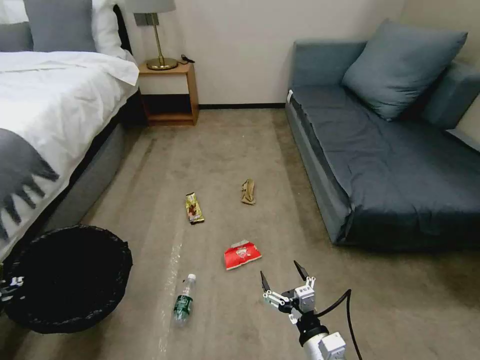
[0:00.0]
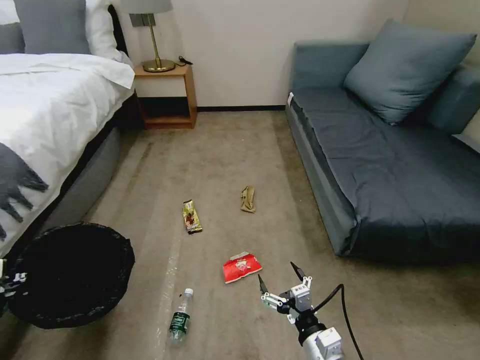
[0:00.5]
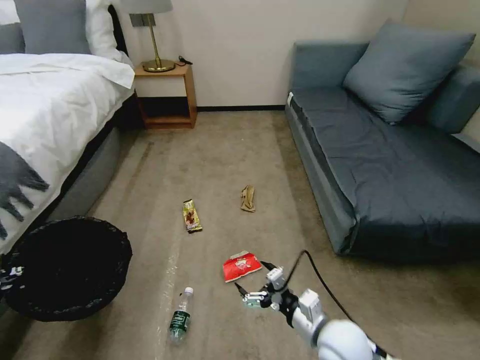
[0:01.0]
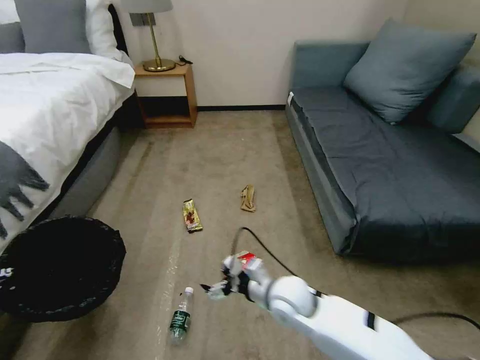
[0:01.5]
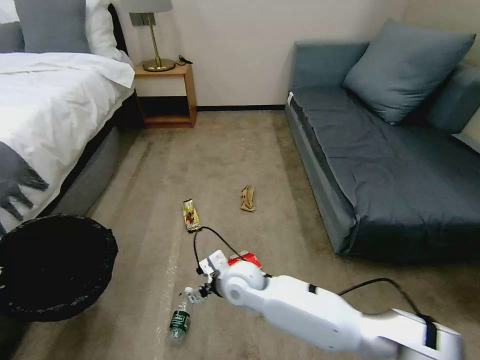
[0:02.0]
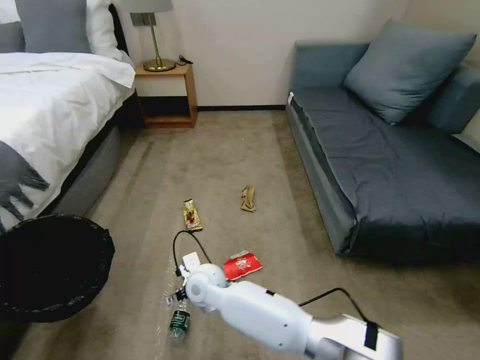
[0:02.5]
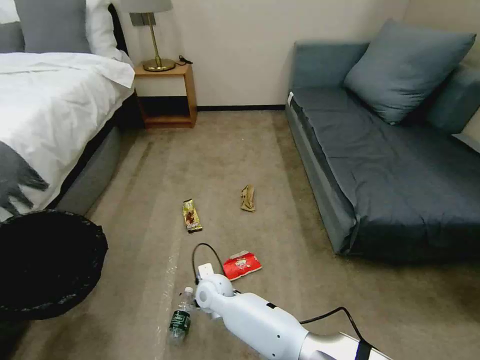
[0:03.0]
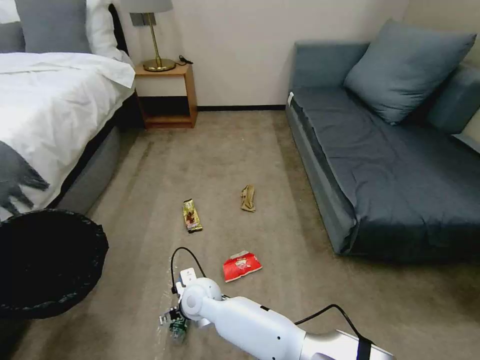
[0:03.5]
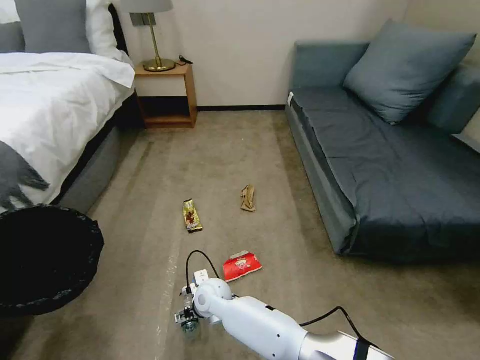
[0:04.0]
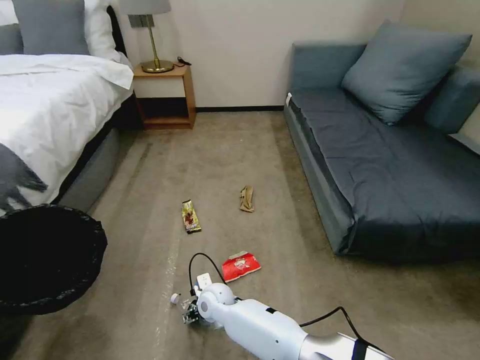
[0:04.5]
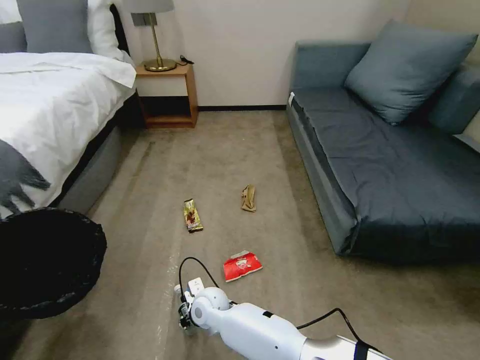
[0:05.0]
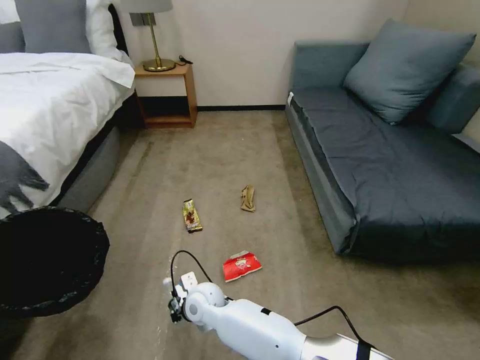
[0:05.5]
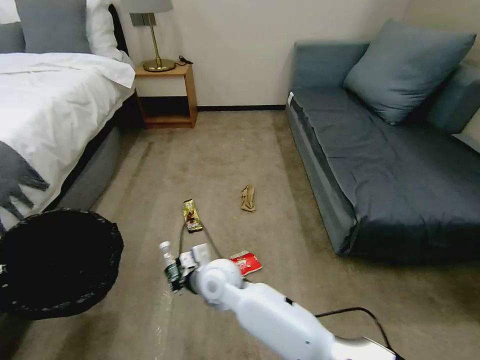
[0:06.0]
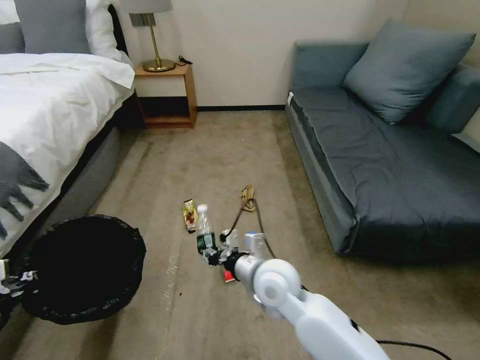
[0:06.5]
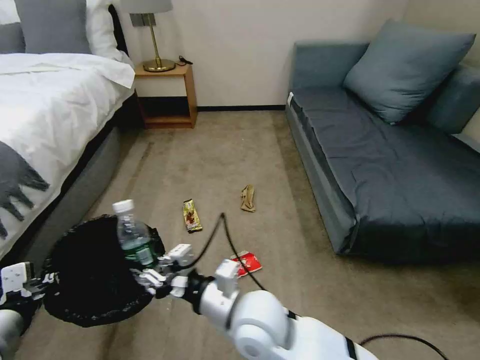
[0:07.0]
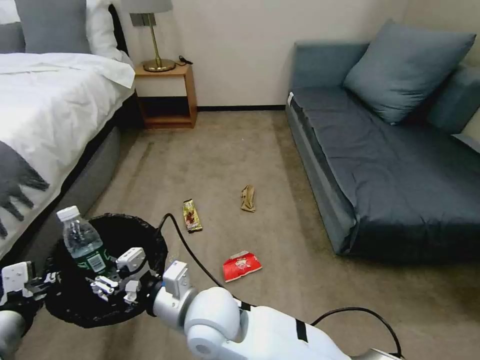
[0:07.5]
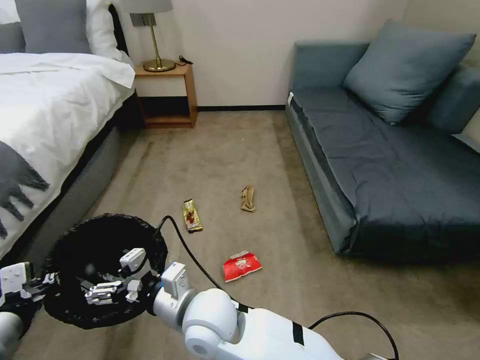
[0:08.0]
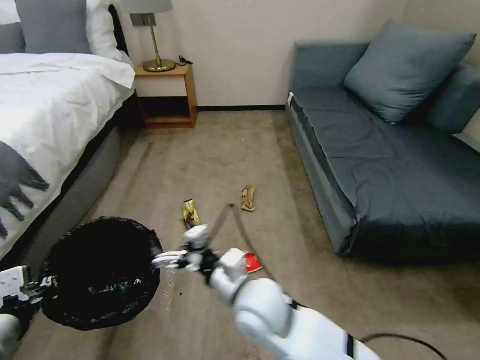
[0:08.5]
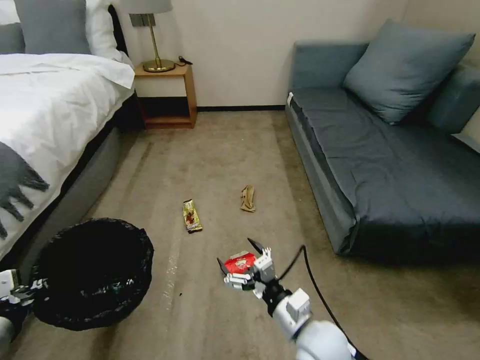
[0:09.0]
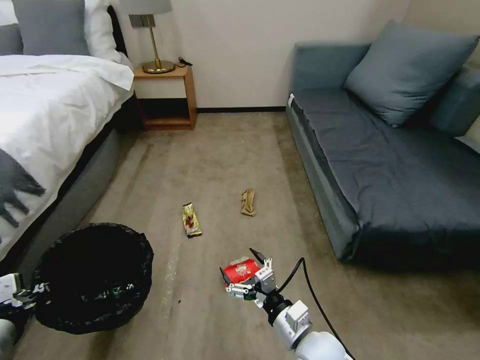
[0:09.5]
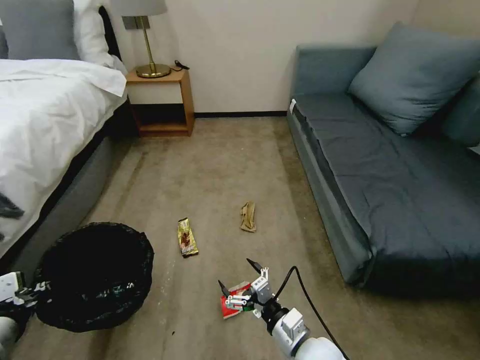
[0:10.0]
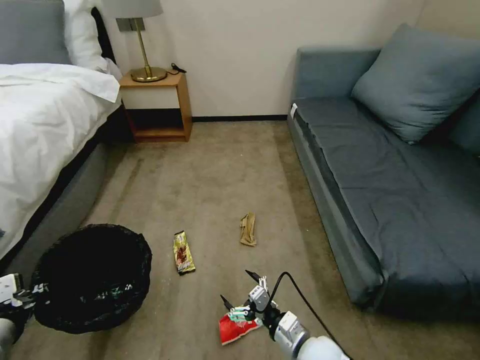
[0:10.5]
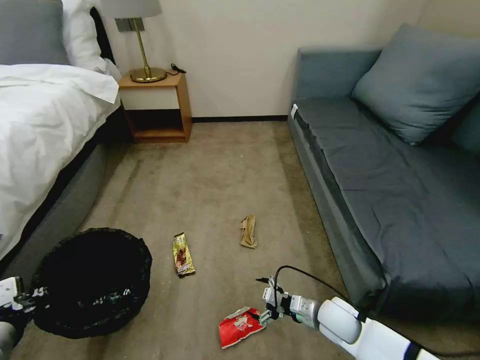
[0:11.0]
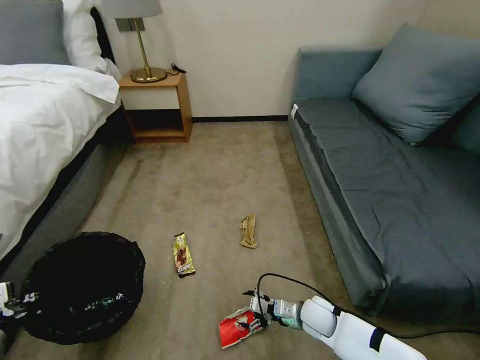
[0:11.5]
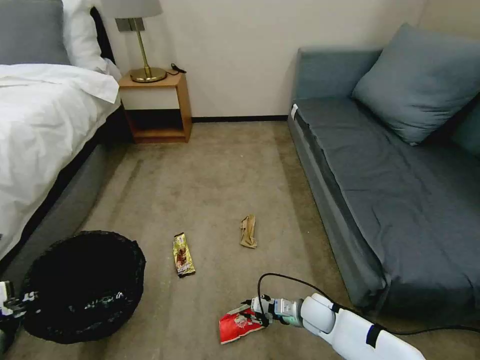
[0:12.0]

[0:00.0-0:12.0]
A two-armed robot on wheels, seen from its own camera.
Task of the whole recording: Pick up the trash bin, then pick up the garbage on the floor and place it into the trash bin.
0:00.0 to 0:02.0: The right gripper is displaced forward and to the left by some 30 cm.
0:02.0 to 0:04.0: The right gripper is displaced downward and to the left by approximately 10 cm.
0:04.0 to 0:06.0: The right gripper heads upward, covering approximately 10 cm, and closes its fingers.
0:06.0 to 0:08.0: The left gripper moves to the right, some 10 cm. The right gripper travels backward and upward by roughly 10 cm, reaches approximately 15 cm to the right, then returns, and opens its fingers.
0:08.0 to 0:10.0: The right gripper is displaced to the right and downward by roughly 25 cm.
0:10.0 to 0:12.0: The right gripper shifts some 20 cm forward, downward and to the right, and closes its fingers.

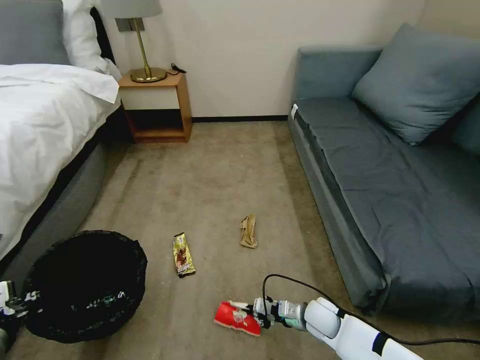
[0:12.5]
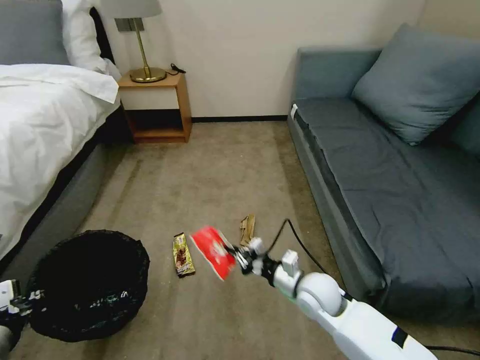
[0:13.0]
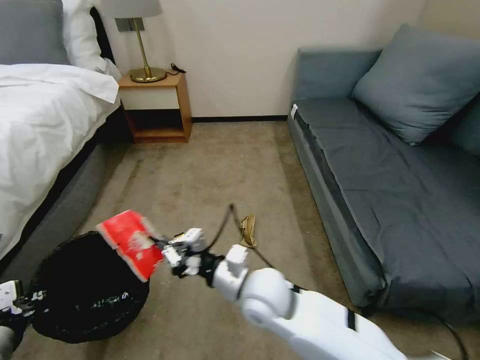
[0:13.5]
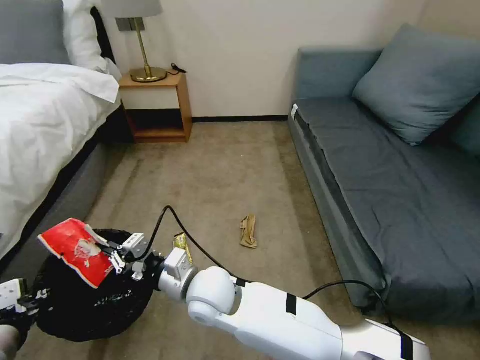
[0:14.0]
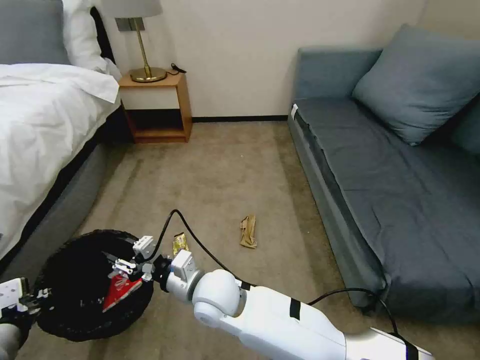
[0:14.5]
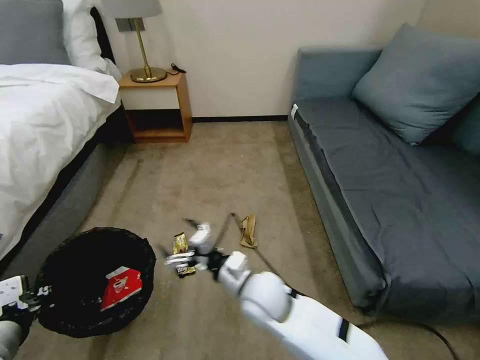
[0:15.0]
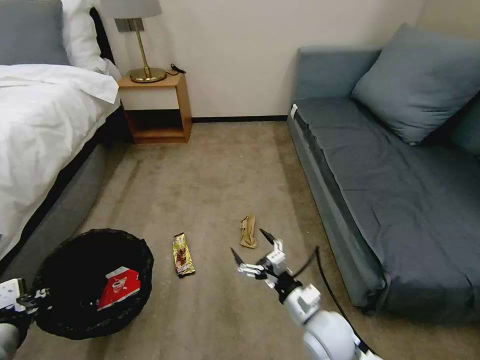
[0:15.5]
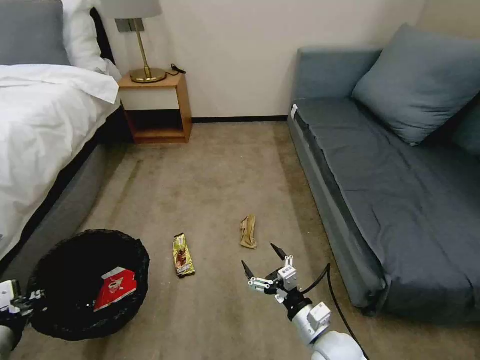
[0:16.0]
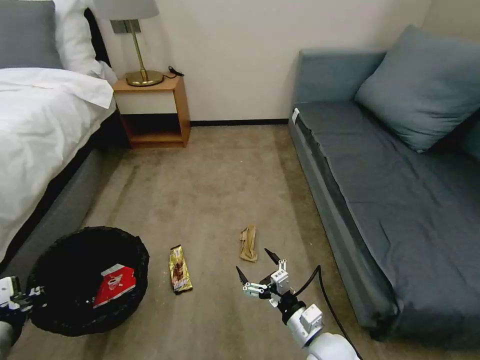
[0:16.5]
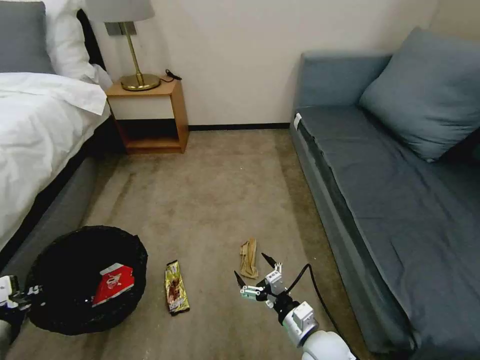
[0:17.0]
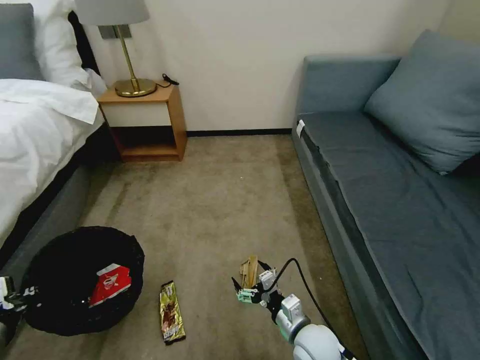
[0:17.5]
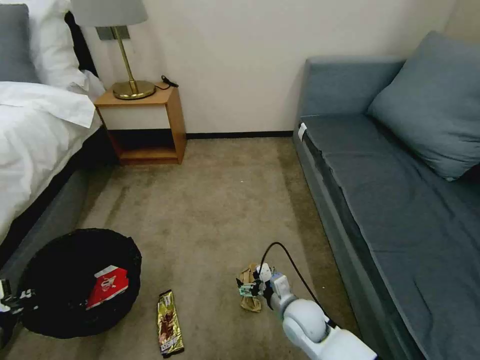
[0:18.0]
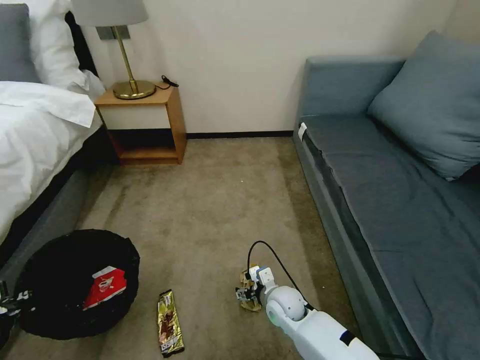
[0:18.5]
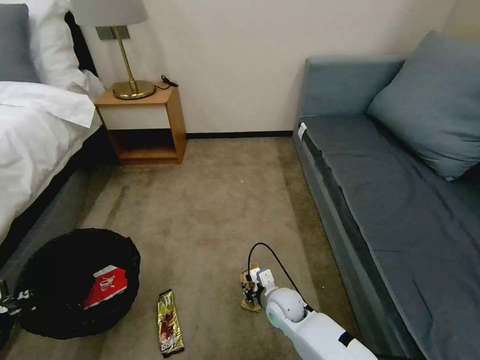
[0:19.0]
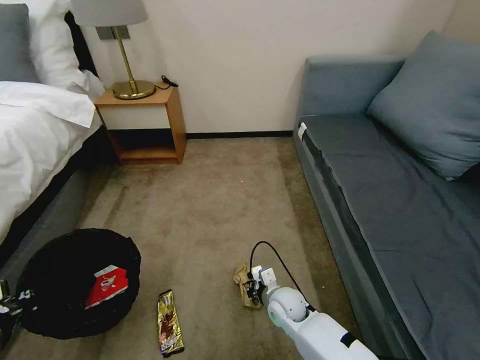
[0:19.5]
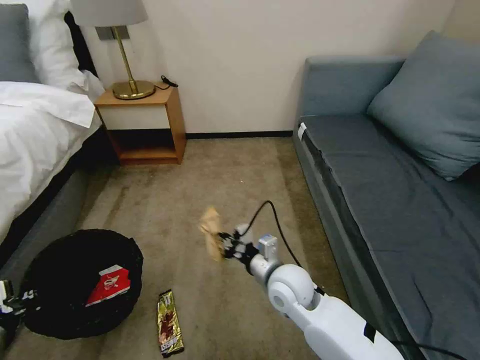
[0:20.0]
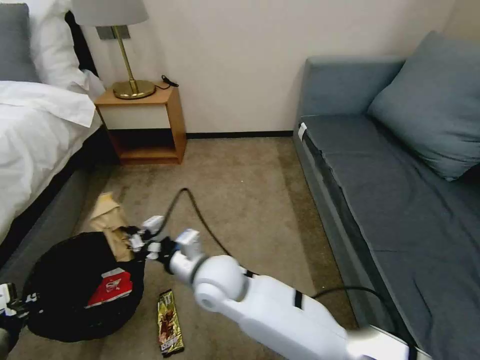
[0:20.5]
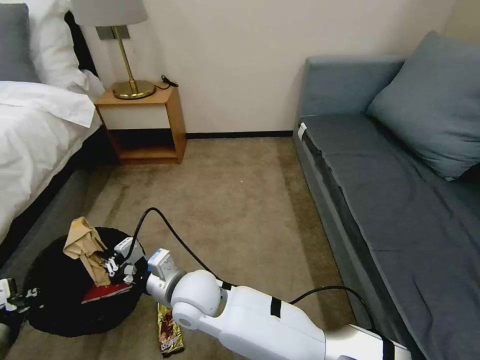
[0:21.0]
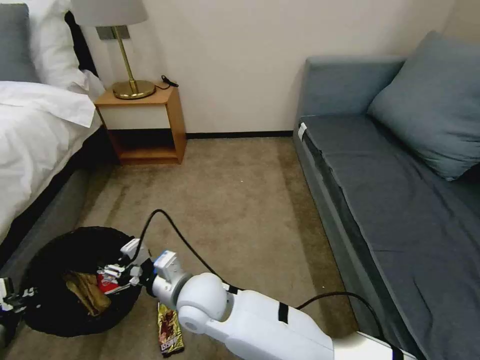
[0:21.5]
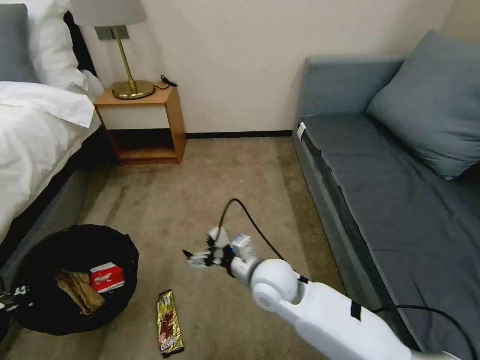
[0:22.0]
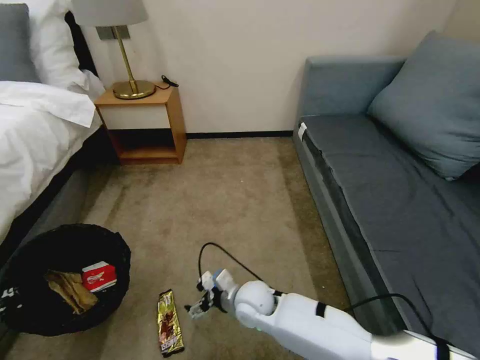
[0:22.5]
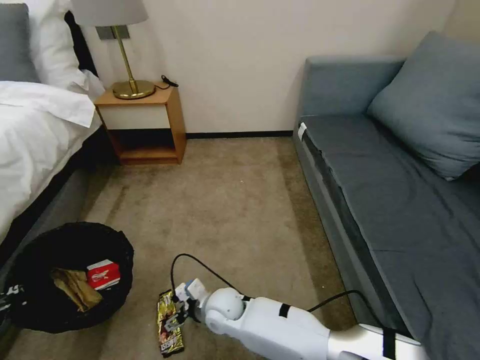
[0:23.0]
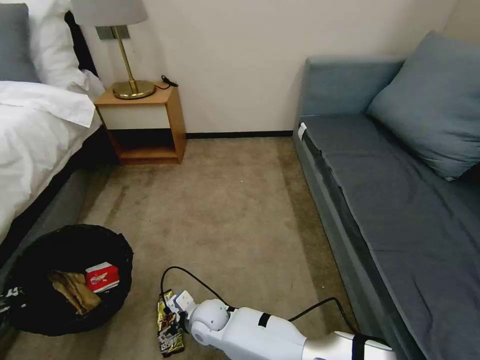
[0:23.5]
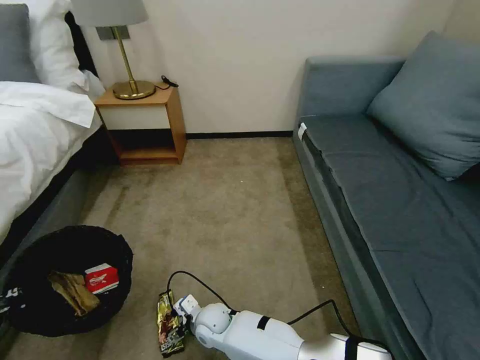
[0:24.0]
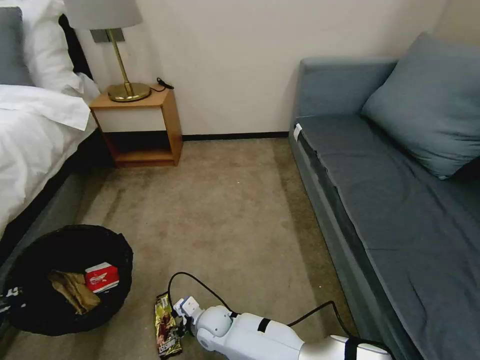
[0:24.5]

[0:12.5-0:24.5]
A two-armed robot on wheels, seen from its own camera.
Task of the whole recording: Pick up the trash bin, then pick up the garbage on the floor and place it into the trash bin.
0:12.5 to 0:14.5: The right gripper goes roughly 35 cm to the left and upward, and opens.
0:14.5 to 0:16.5: The right gripper goes roughly 25 cm to the right and downward, and opens up.
0:16.5 to 0:18.5: The right gripper shifts roughly 15 cm forward, to the left and downward.
0:18.5 to 0:20.5: The right gripper goes approximately 25 cm upward and to the left, and closes.
0:20.5 to 0:22.5: The right gripper is displaced downward and to the right by about 15 cm, and opens up.
0:22.5 to 0:24.5: The right gripper goes roughly 15 cm downward and to the left, and closes up.

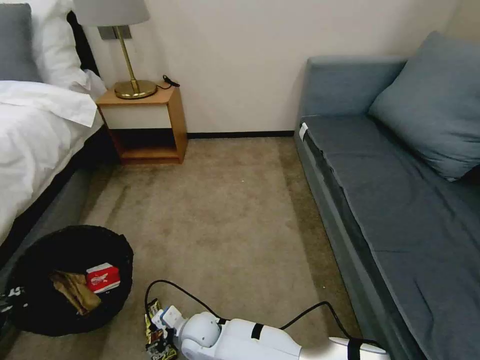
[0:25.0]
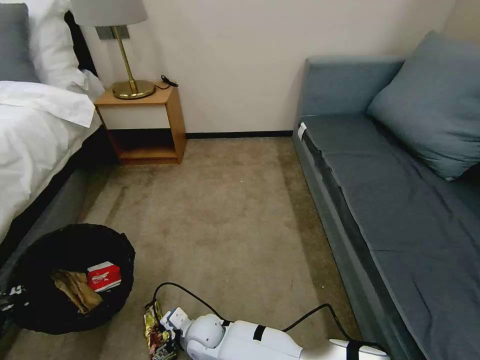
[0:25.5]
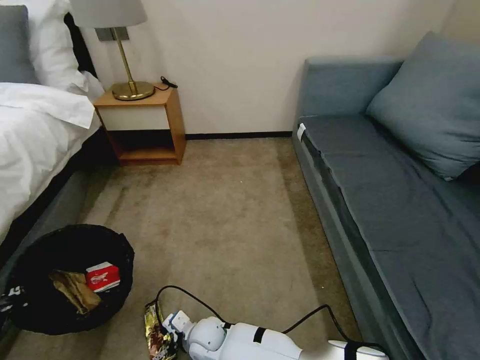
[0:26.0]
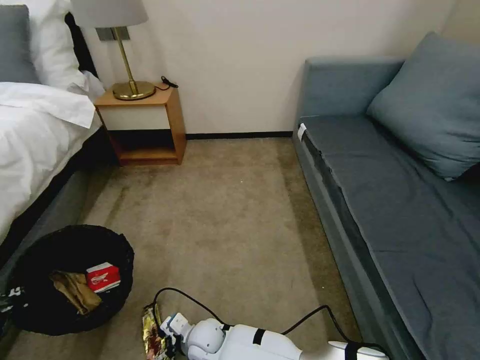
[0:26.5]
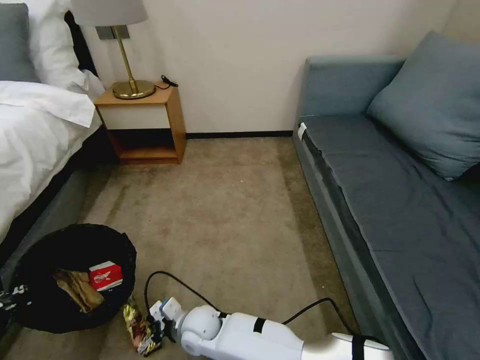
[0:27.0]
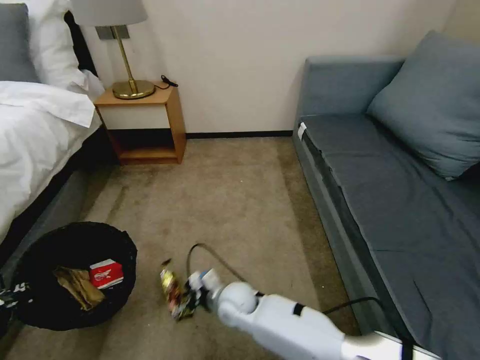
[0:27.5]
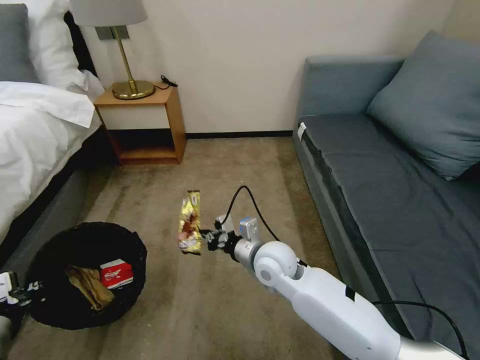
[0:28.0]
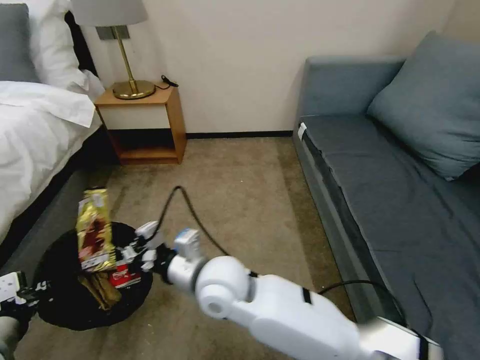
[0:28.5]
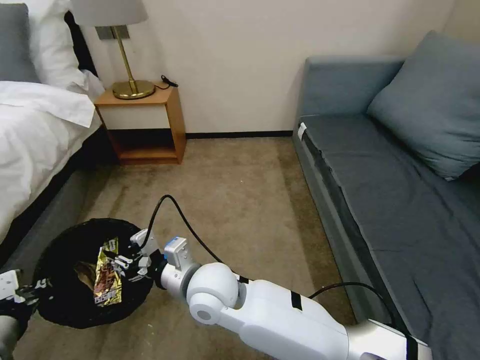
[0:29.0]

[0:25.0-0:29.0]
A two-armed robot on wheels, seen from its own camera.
Task of the whole recording: Pick up the trash bin, then pick up the garbage on the floor and place it into the trash bin.
0:25.0 to 0:27.0: The right gripper closes.
0:27.0 to 0:29.0: The right gripper heads upward, covering about 20 cm.
